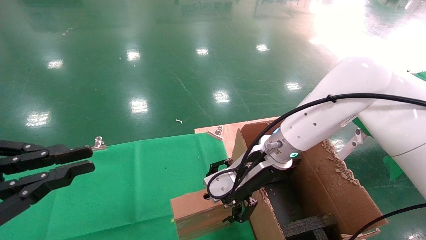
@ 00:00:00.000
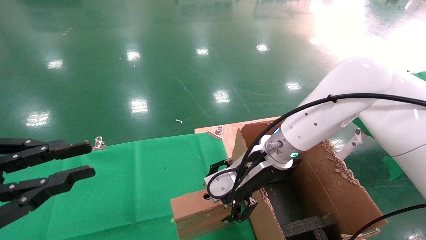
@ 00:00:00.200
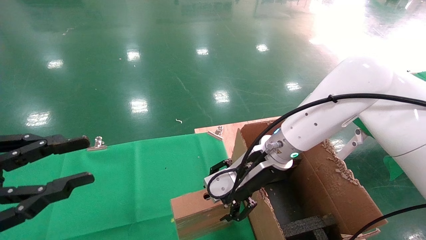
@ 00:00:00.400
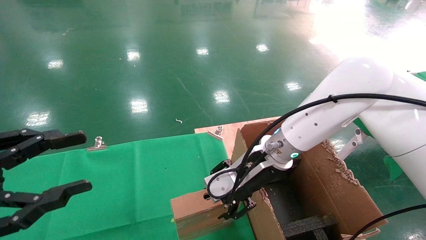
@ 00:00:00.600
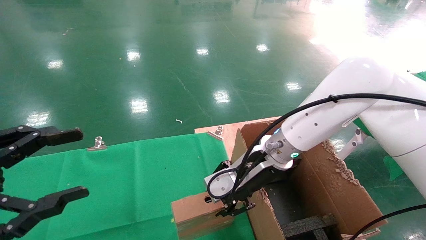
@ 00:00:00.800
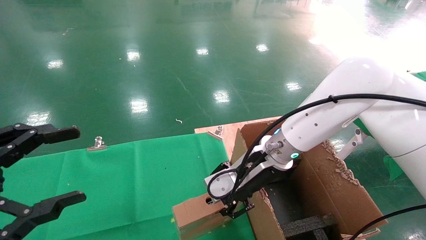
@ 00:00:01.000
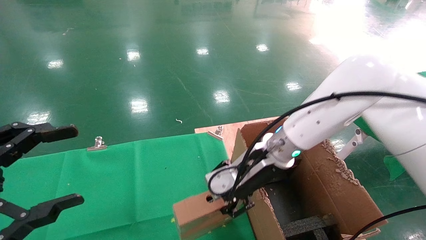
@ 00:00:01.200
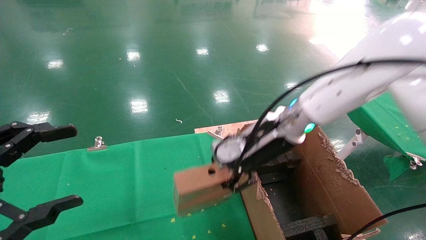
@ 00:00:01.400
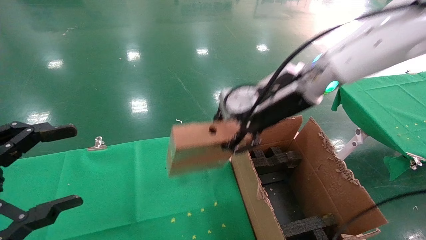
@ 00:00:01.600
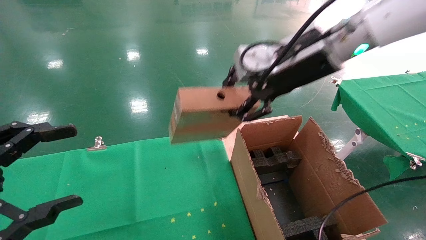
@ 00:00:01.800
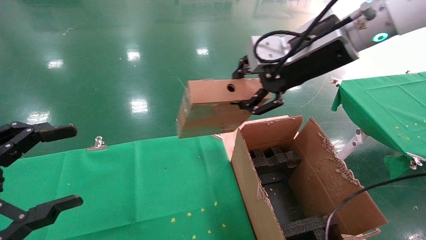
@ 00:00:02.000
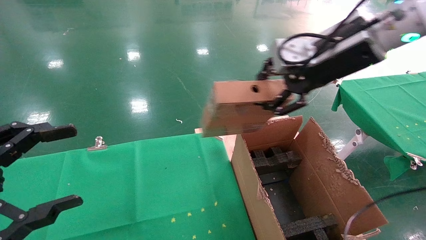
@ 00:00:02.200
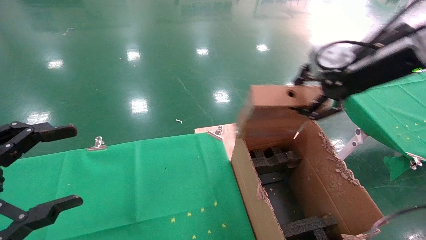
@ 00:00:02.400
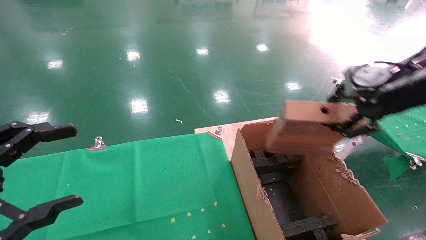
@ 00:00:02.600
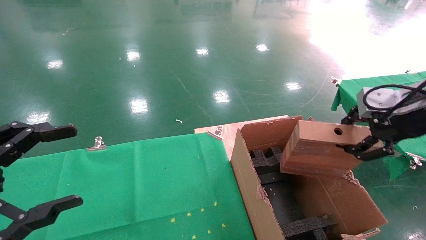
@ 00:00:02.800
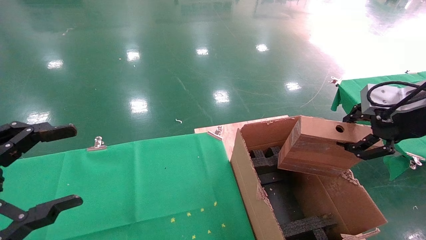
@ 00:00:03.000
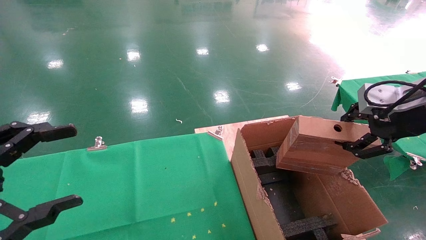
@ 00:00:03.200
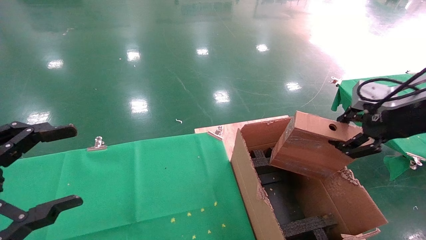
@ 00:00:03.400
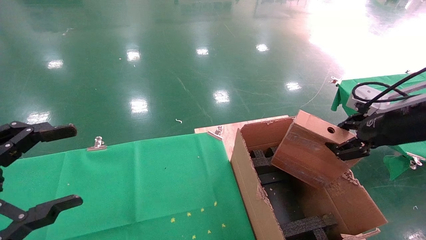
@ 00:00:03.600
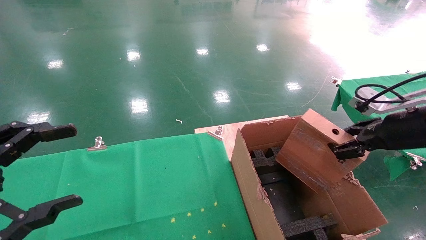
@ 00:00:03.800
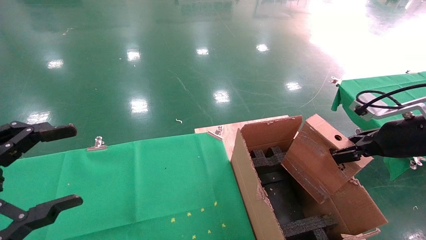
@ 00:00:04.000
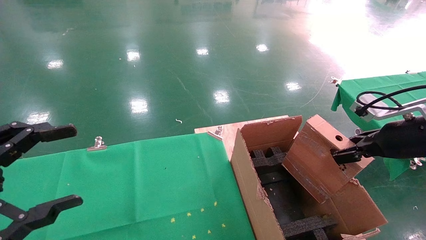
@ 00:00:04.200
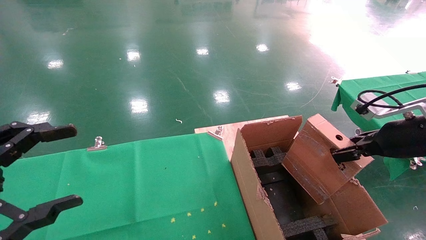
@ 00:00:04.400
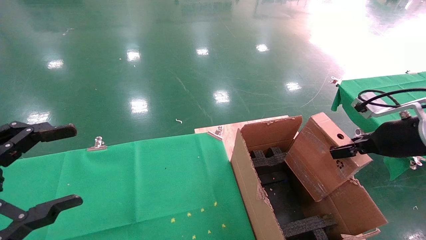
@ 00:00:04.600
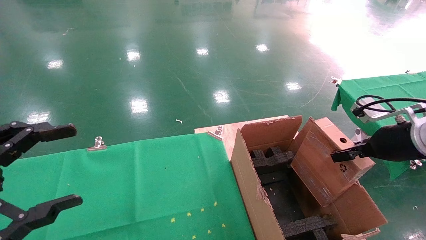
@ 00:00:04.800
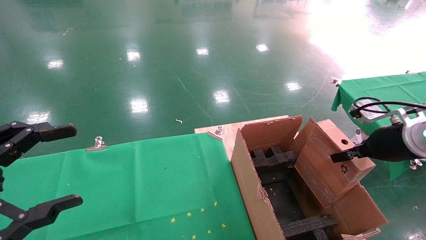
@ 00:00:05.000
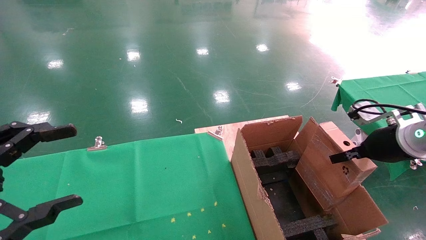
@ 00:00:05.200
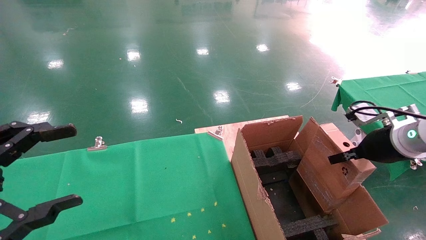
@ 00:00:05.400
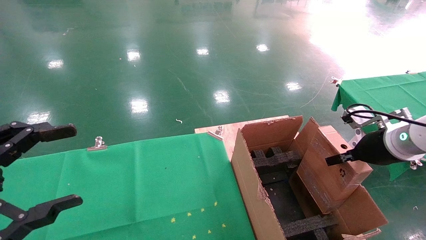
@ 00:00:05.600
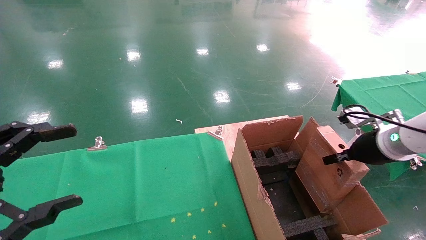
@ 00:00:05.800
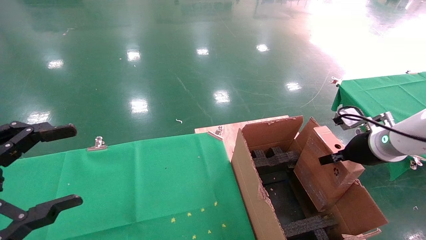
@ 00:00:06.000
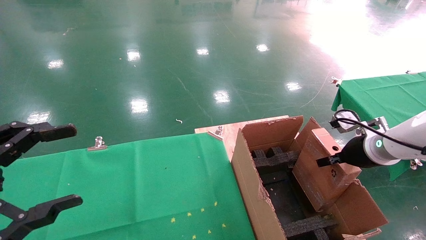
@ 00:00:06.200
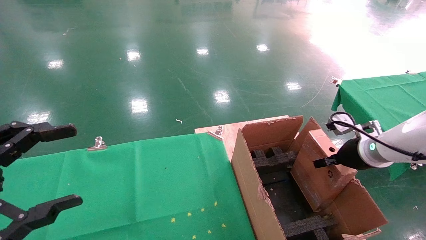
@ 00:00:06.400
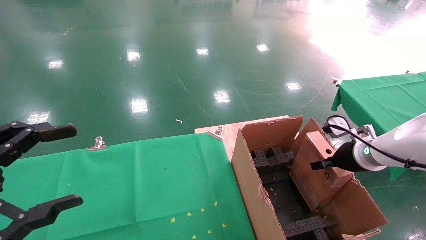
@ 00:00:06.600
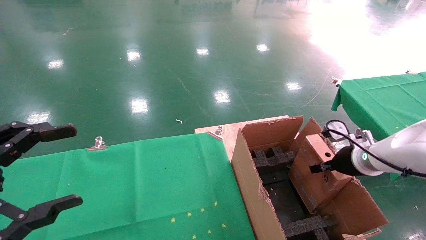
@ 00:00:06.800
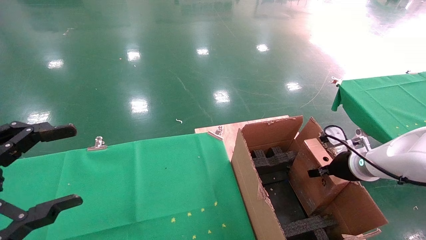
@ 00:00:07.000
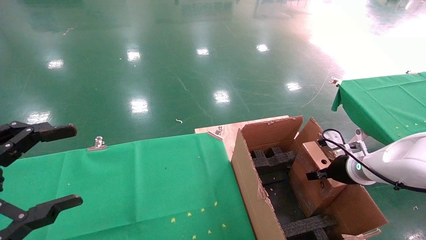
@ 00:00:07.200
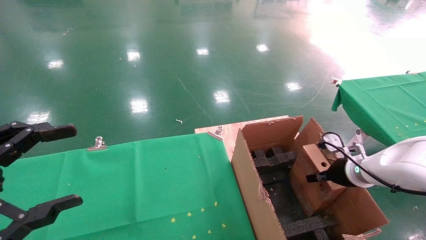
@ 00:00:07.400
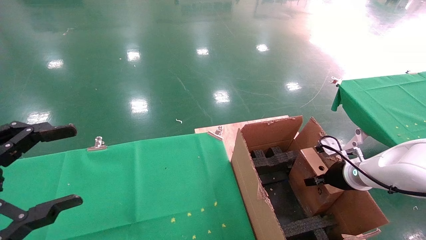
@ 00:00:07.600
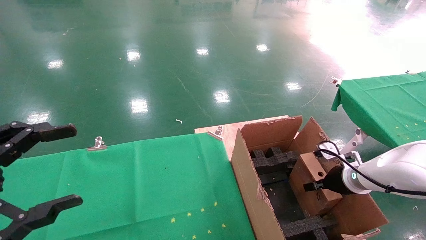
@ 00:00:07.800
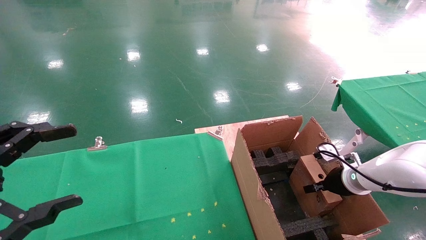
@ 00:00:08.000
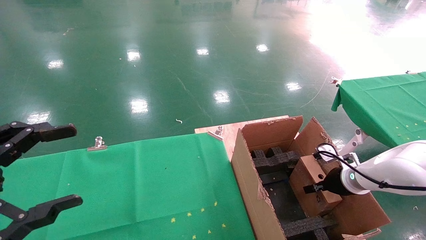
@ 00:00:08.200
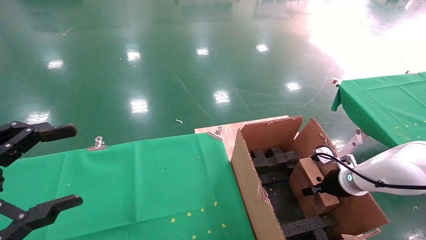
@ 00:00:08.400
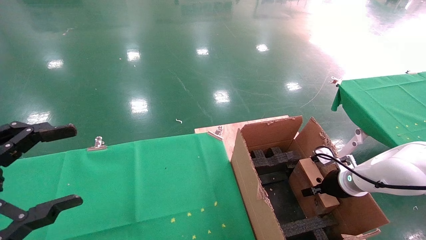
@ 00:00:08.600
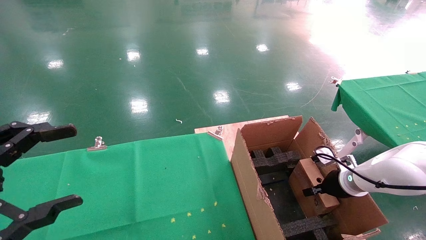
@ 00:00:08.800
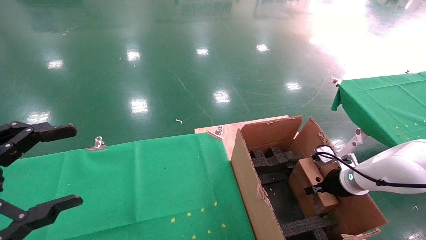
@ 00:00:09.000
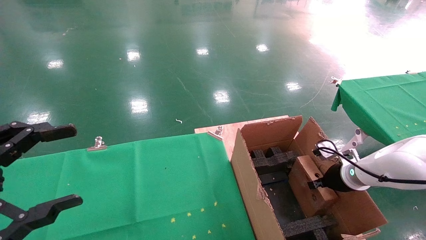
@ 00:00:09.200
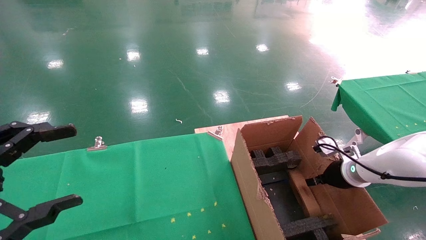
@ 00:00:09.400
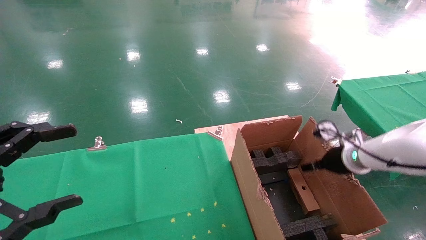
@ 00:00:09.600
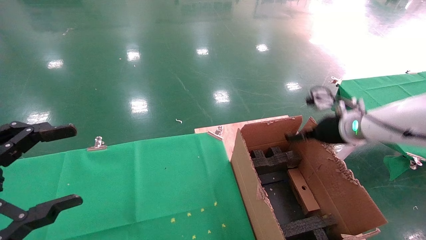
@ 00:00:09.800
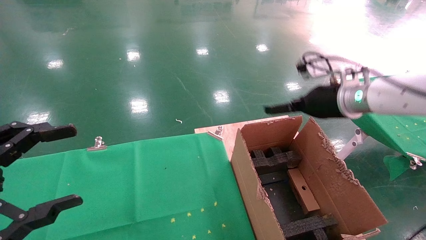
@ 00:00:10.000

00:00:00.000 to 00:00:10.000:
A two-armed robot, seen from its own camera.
Task of the whole recording: using a robotic arm to pick up a cardboard box and palace it the carton.
Step, 00:00:01.000 to 00:00:09.200: Place the mouse and the power cord paper box into the container.
00:00:00.000 to 00:00:01.400: The left gripper opens up. Meanwhile the right gripper travels upward by roughly 5 cm, and closes up.
00:00:01.400 to 00:00:02.800: The right gripper goes approximately 25 cm to the right and backward.
00:00:02.800 to 00:00:04.200: The right gripper goes some 10 cm downward.
00:00:04.200 to 00:00:05.800: The right gripper goes roughly 5 cm forward.
00:00:05.800 to 00:00:07.200: The right gripper moves downward, some 10 cm.
00:00:07.200 to 00:00:08.600: The right gripper travels downward by approximately 5 cm.
00:00:08.600 to 00:00:10.000: The right gripper shifts about 20 cm upward, and opens up.

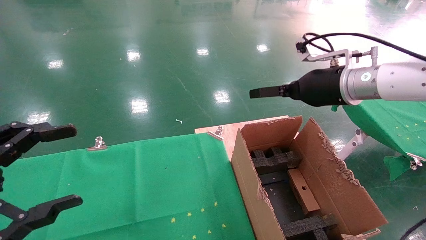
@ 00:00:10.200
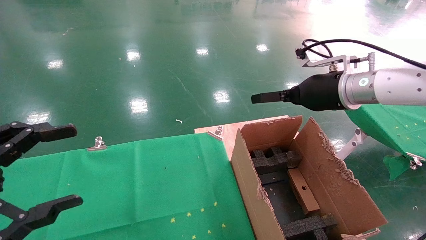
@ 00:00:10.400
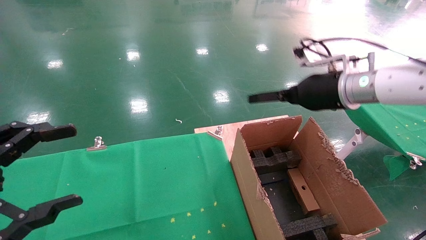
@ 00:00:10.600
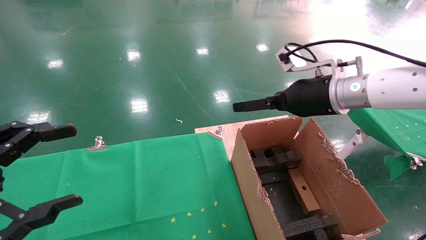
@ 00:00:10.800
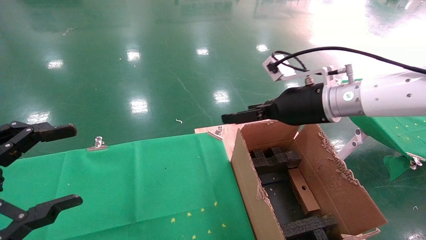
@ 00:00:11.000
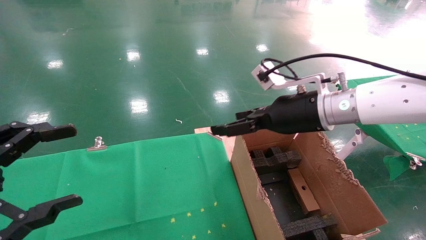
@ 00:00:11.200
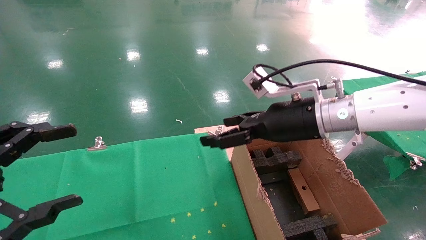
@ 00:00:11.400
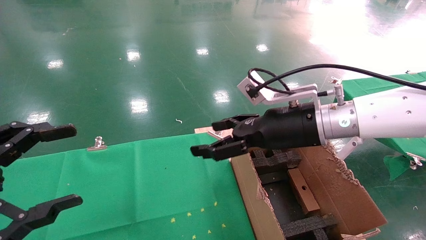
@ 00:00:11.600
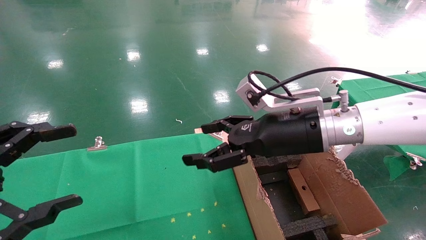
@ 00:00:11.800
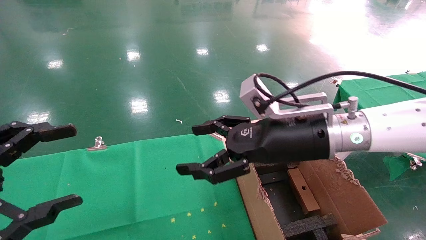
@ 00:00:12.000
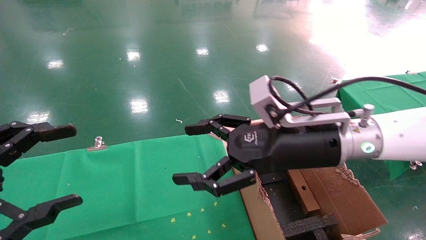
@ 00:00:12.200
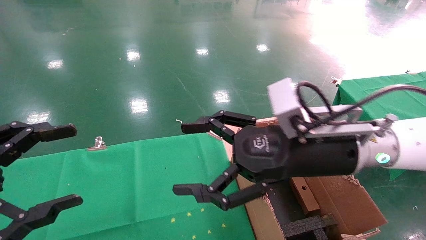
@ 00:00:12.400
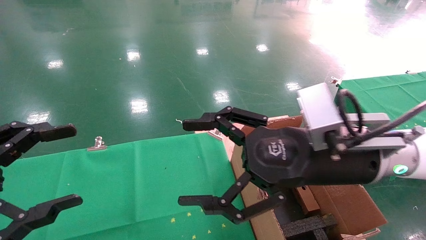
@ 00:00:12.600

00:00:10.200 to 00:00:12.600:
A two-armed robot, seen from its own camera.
Task of the whole recording: using a robotic arm to pick up a cardboard box and palace it the carton.
00:00:10.200 to 00:00:11.400: The right gripper moves to the left, roughly 10 cm.
00:00:11.400 to 00:00:12.600: The right gripper shifts about 10 cm backward.
